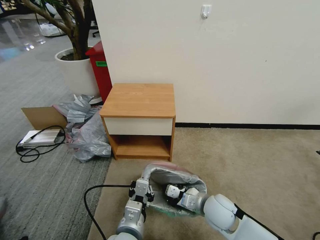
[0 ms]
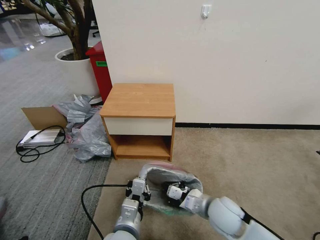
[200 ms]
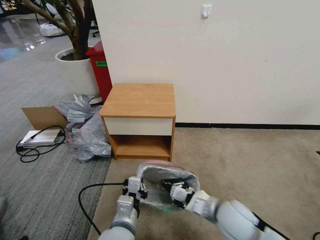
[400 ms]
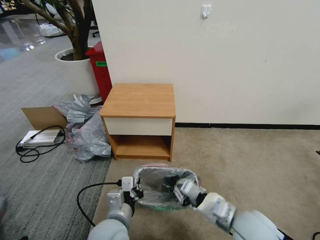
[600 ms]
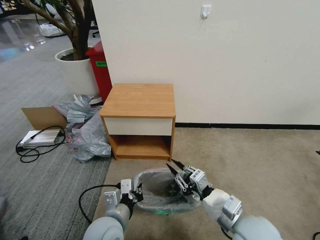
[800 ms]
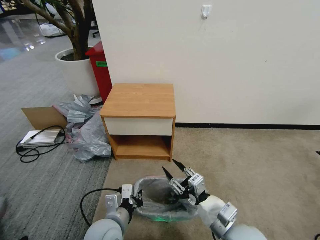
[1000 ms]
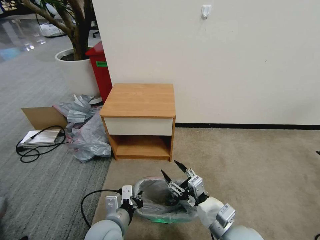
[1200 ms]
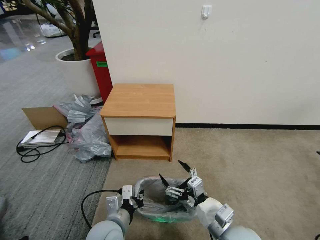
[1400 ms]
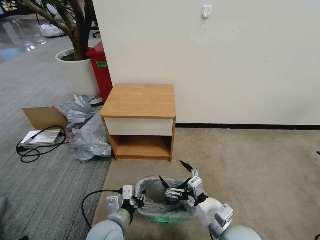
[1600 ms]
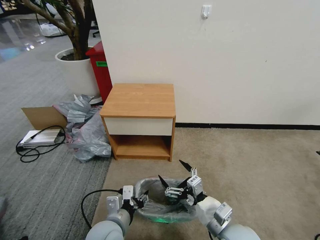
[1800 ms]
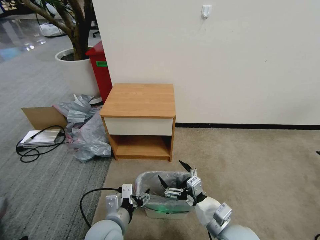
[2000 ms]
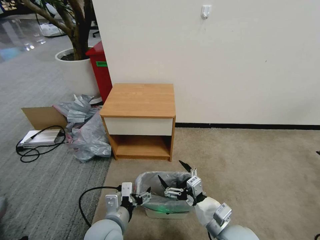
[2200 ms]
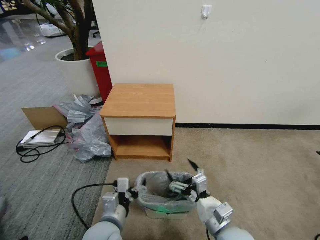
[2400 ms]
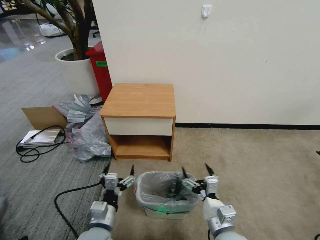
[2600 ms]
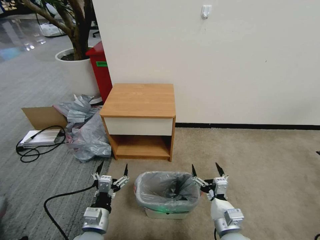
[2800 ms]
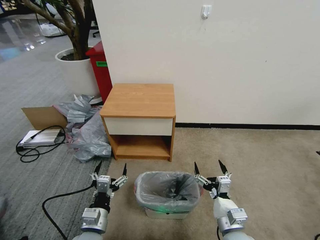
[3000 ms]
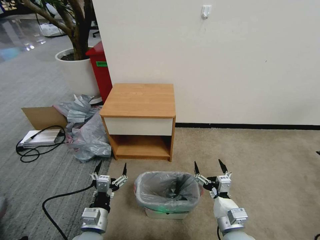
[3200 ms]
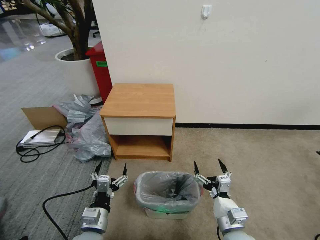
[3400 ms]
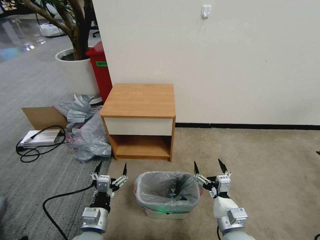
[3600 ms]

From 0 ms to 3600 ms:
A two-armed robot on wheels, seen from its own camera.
Task of the whole recording: Pick up the garbage bag from the table and place it over the trash can.
From 0 ms to 1800 ms: The left gripper is displaced to the left by some 5 cm, and opens its fingers. The right gripper goes approximately 10 cm backward, and opens.
From 1800 ms to 3600 ms: The right gripper shifts by roughly 5 cm. Meanwhile the left gripper travels to the left by about 5 cm, and opens its fingers.

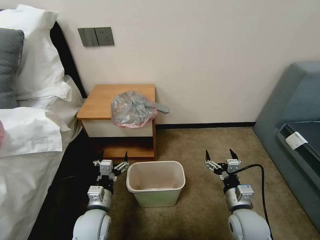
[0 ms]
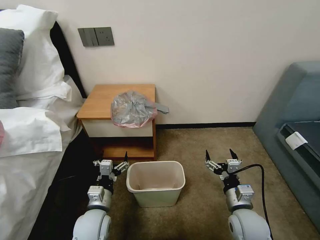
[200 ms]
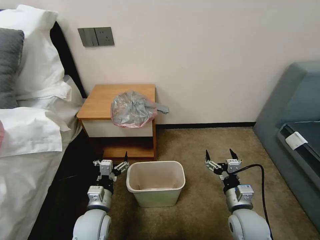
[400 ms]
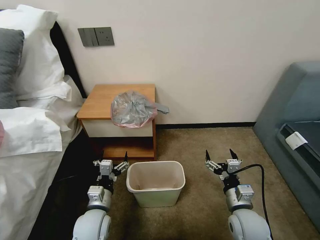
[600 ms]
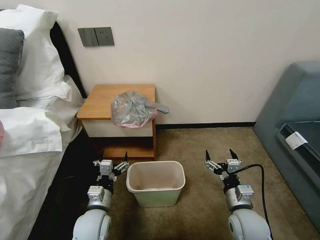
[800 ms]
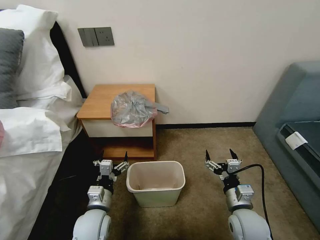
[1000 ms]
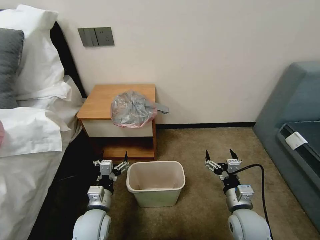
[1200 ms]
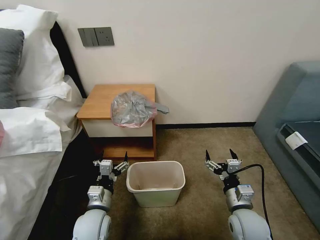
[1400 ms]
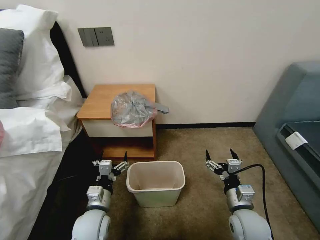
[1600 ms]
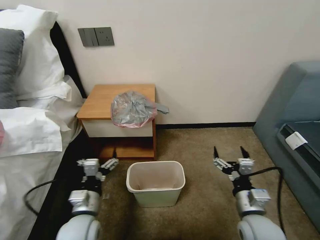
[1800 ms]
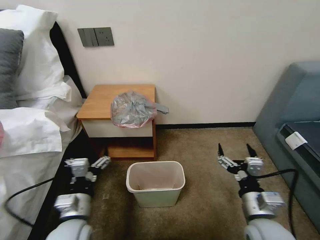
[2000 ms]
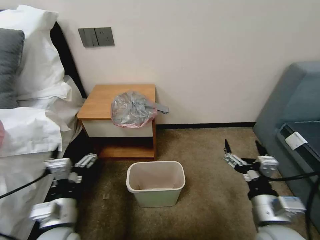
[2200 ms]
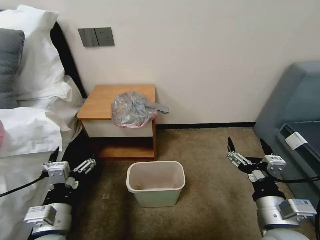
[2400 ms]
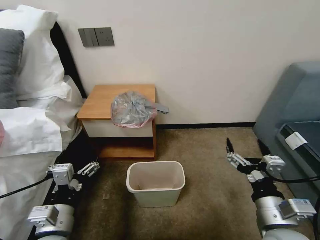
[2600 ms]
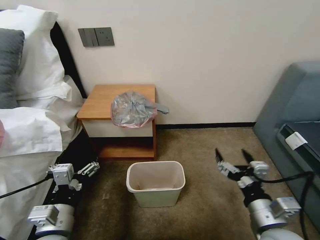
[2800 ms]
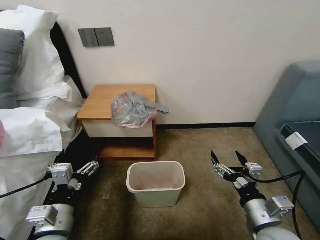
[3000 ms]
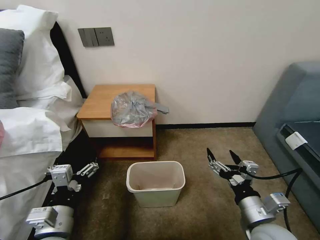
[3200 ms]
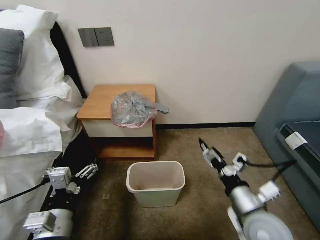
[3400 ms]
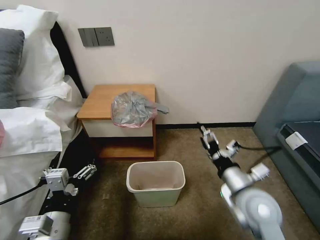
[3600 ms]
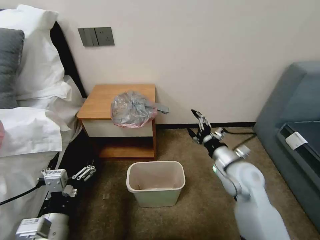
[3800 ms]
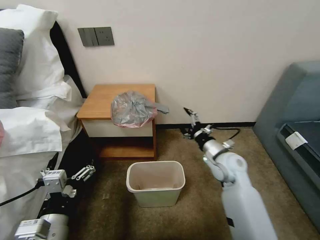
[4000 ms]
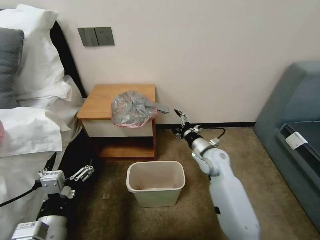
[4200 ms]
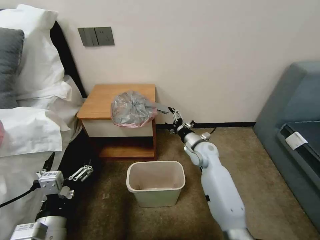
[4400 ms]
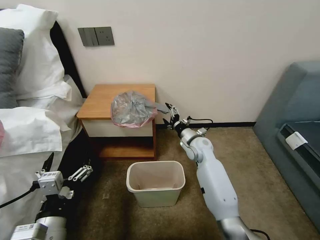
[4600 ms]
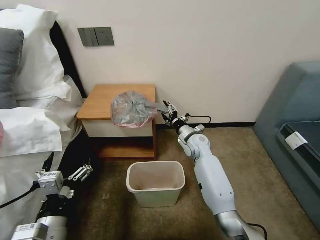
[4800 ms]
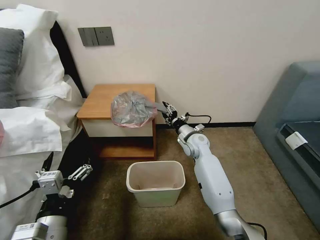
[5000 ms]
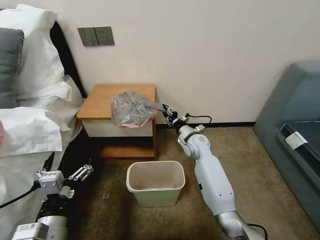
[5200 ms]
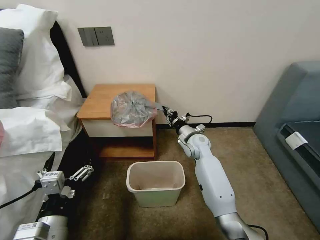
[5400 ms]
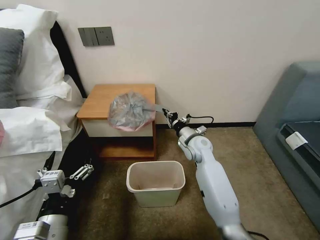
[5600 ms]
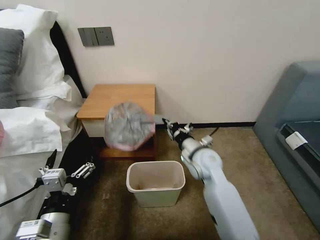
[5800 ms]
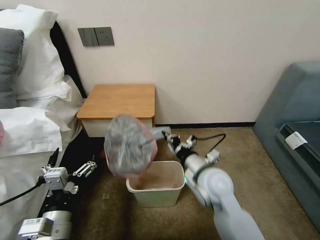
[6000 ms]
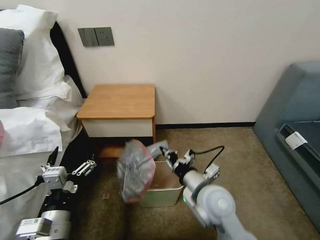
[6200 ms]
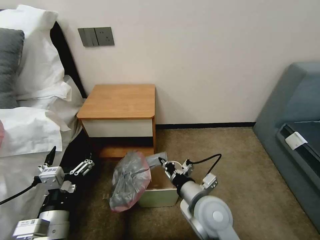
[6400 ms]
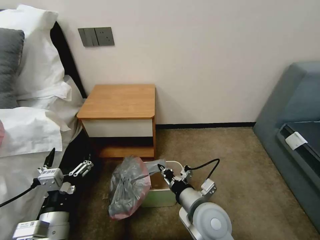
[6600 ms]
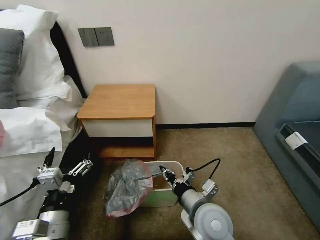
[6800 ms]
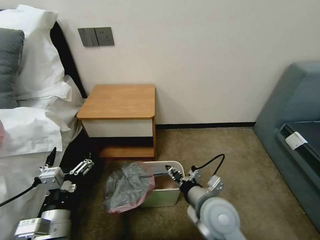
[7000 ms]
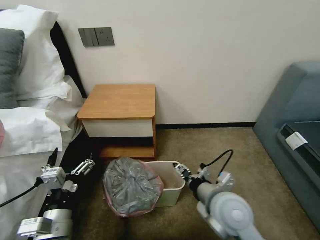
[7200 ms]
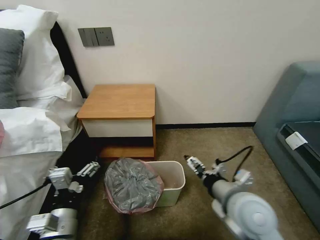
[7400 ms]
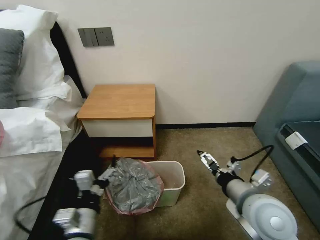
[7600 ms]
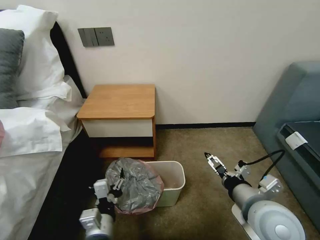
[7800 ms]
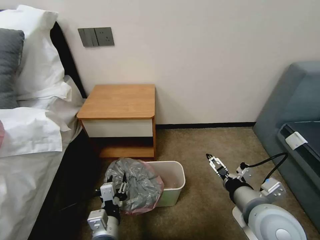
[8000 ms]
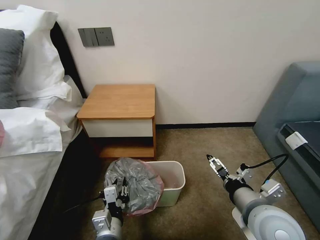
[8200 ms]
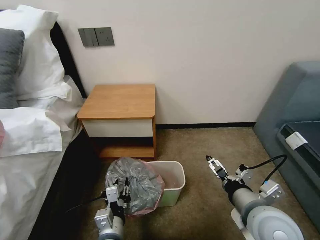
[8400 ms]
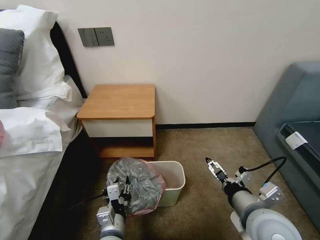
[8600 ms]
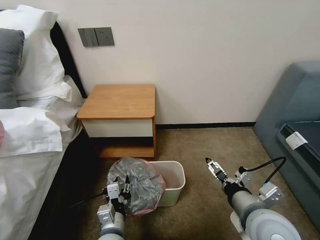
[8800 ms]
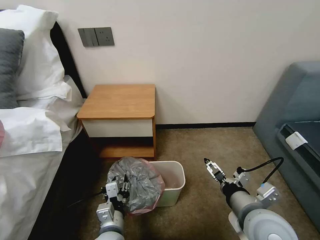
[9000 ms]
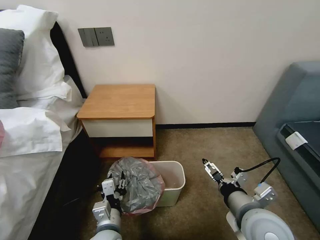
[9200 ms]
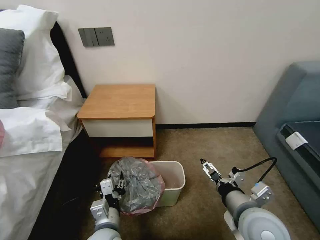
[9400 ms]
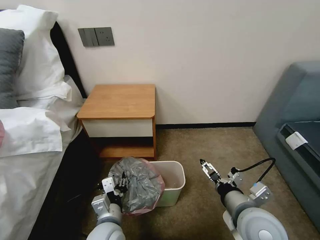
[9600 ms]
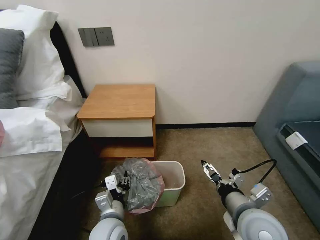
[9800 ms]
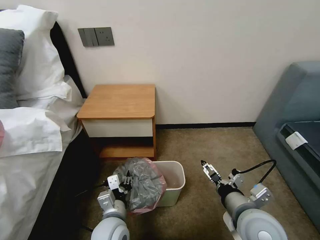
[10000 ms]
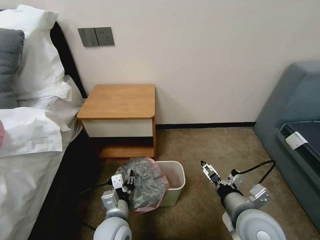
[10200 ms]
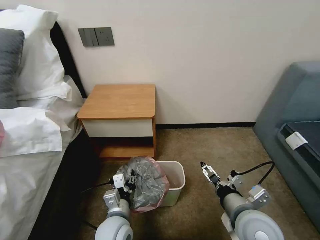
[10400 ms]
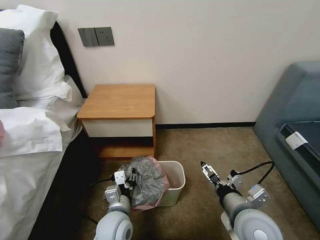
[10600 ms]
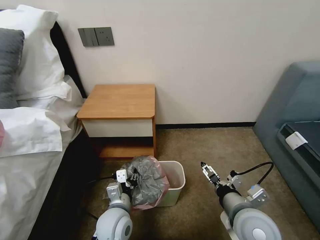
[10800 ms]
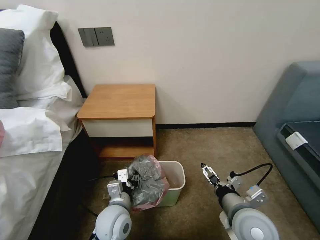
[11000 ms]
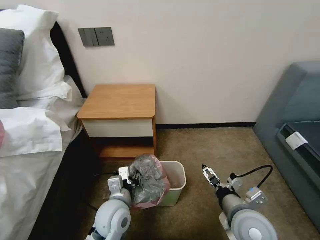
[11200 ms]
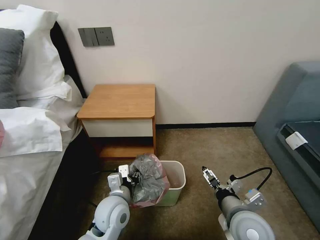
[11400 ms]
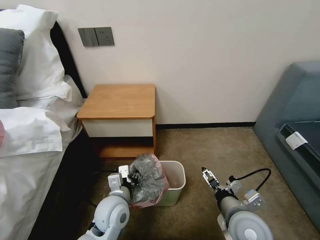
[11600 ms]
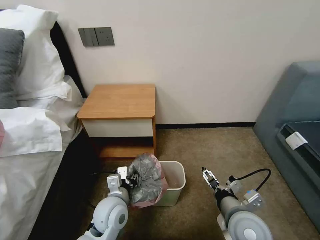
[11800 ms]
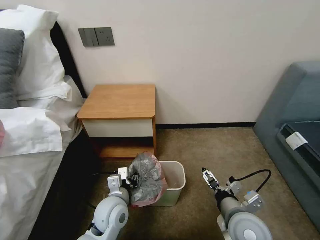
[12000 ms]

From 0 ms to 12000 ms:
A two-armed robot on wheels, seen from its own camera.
Task of the whole recording: Pick up the garbage bag from the table and place it over the trash can.
From 1600 ms to 3000 ms: The grippers both shift upward and backward by some 10 cm.
From 3000 ms to 4400 ms: The right gripper is displaced forward by approximately 30 cm.
From 4400 ms to 6000 ms: The right gripper is displaced backward and upward by approximately 20 cm, and closes up.
From 6000 ms to 7600 ms: The right gripper shifts approximately 10 cm to the right and backward, and opens up. Meanwhile the left gripper ends up some 5 cm from where it was.
From 7600 ms to 9000 ms: The left gripper moves downward and to the right, about 10 cm, and closes its fingers.
From 9000 ms to 10400 ms: The grippers make only small movements.
From 10400 ms to 12000 ms: The left gripper moves some 5 cm.

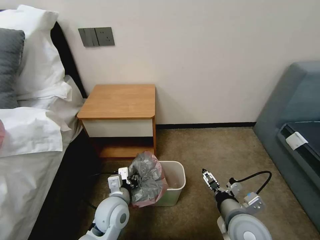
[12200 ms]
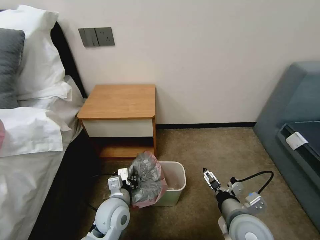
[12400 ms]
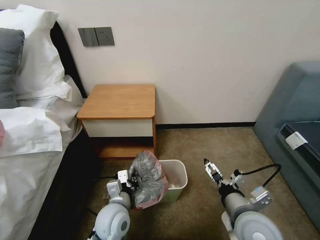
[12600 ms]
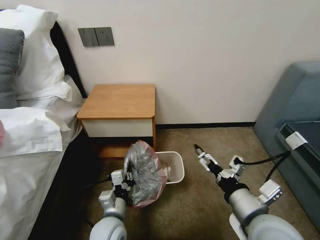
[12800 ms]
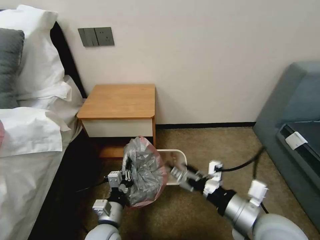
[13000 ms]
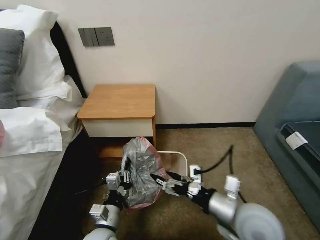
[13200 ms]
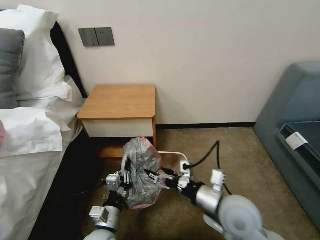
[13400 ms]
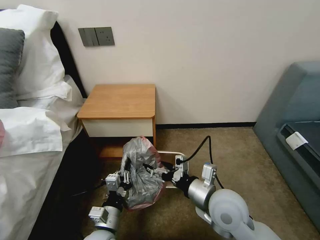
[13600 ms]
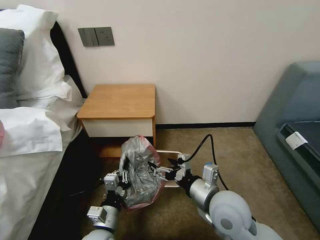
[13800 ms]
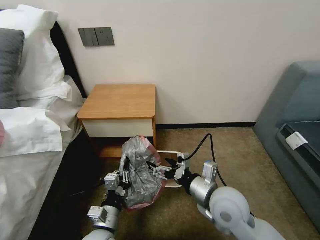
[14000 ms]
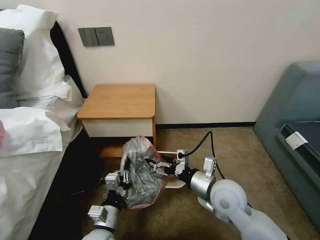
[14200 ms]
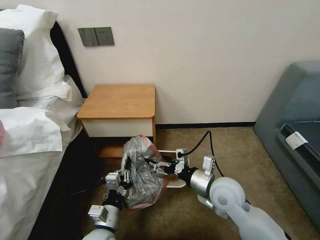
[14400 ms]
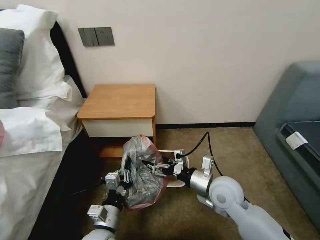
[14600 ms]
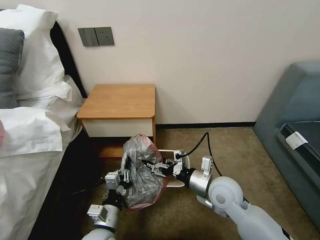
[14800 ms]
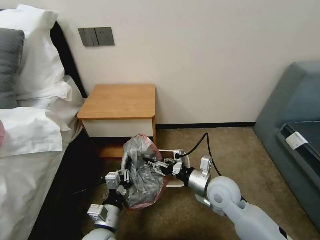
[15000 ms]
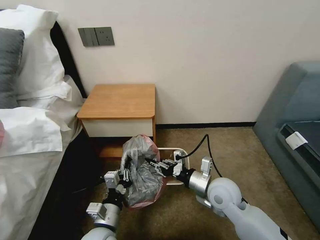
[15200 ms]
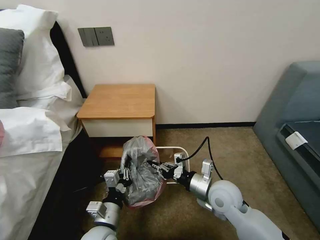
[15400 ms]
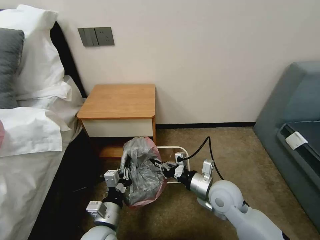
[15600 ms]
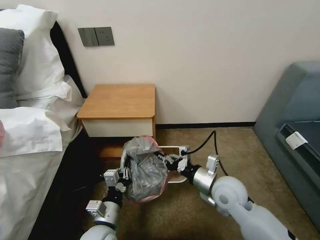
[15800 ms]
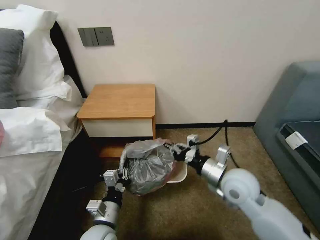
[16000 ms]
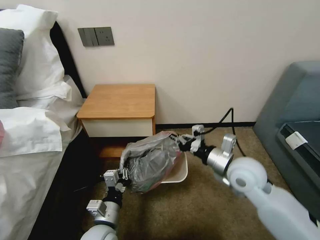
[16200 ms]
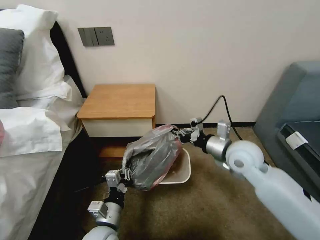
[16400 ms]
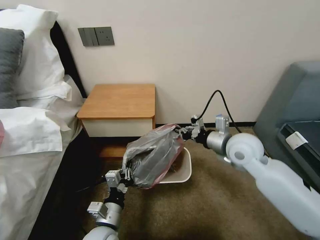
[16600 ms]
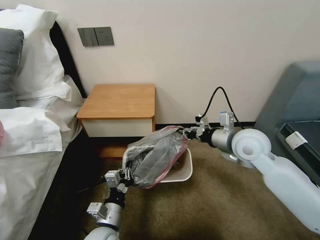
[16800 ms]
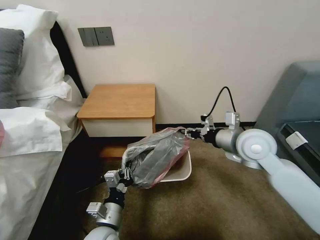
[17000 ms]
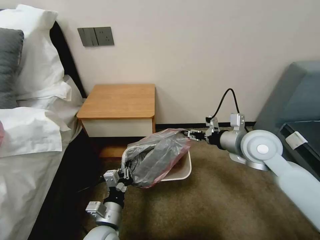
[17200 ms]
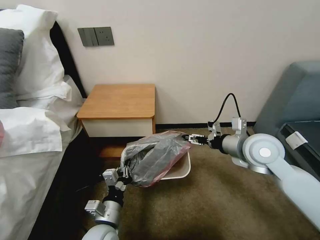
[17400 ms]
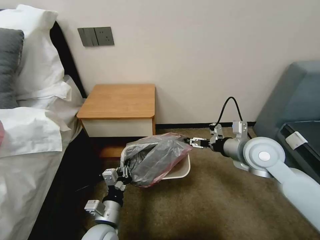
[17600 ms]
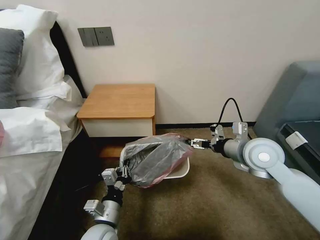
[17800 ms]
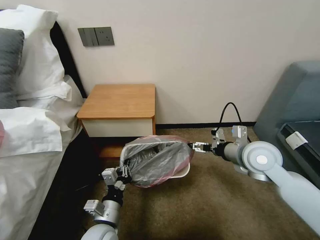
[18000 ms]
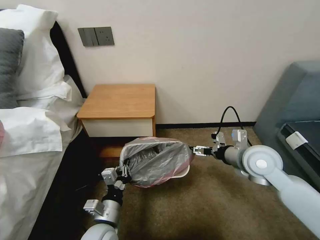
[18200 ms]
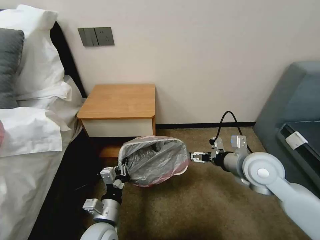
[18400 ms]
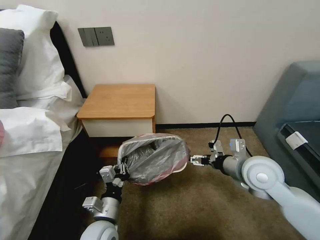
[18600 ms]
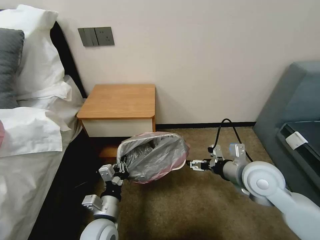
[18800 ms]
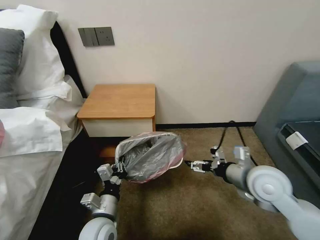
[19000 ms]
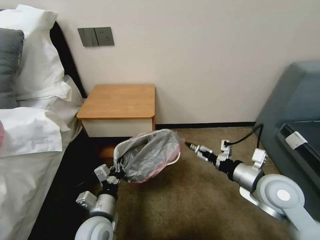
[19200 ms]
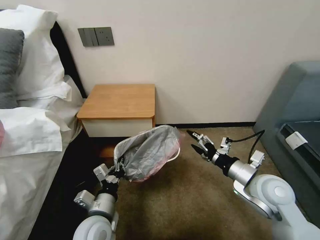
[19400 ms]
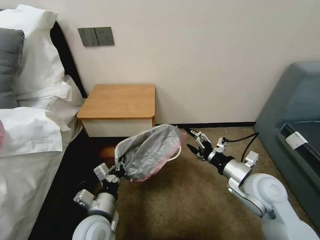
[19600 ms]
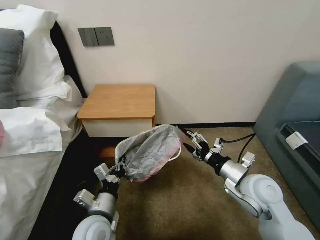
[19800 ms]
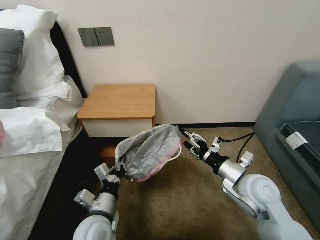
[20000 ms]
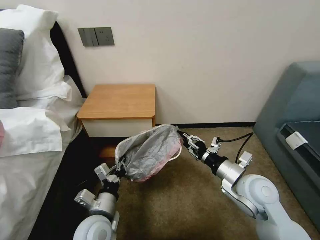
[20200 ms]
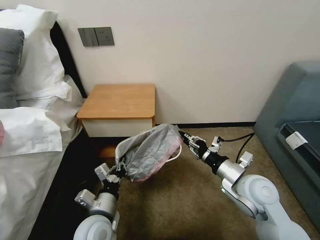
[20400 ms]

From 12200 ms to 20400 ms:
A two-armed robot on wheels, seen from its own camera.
Task of the whole recording: Pick up the garbage bag from the table and place it over the trash can.
From 12200 ms to 13800 ms: The left gripper is displaced backward by approximately 10 cm. The right gripper shifts by approximately 10 cm.
From 13800 ms to 15400 ms: The right gripper travels downward and forward by roughly 10 cm, and closes up.
From 15400 ms to 17200 ms: The right gripper moves upward, to the right and forward, about 20 cm, and opens.
From 17200 ms to 18800 ms: The right gripper heads backward and downward, covering about 10 cm, and opens up.
From 18800 ms to 20400 ms: The right gripper closes.
